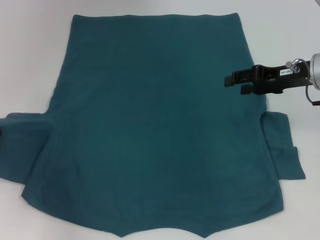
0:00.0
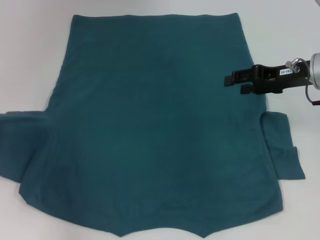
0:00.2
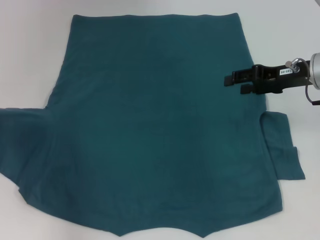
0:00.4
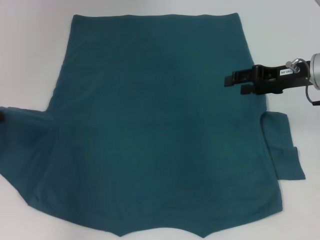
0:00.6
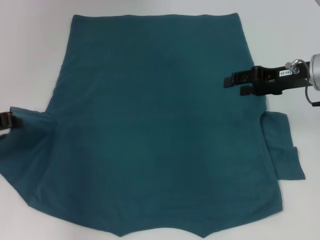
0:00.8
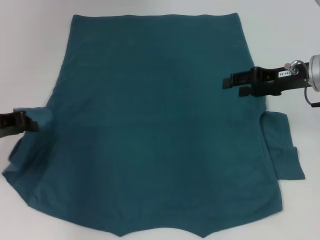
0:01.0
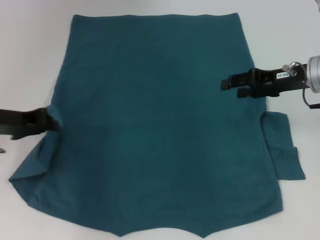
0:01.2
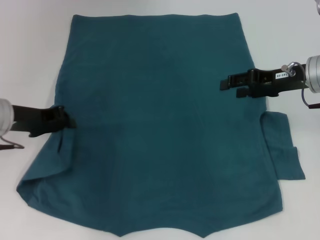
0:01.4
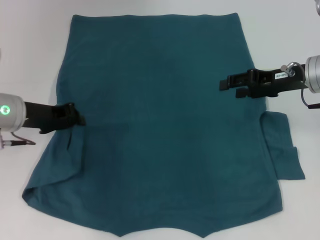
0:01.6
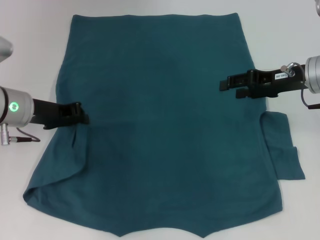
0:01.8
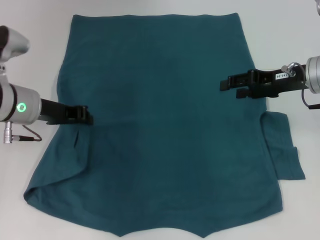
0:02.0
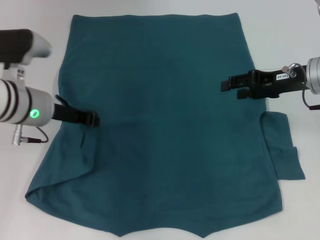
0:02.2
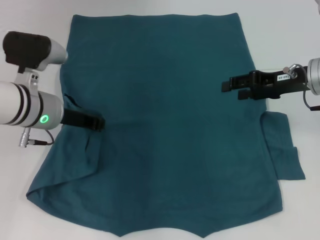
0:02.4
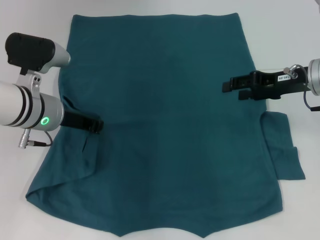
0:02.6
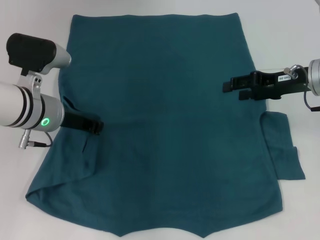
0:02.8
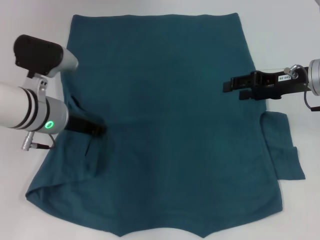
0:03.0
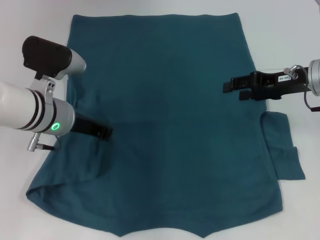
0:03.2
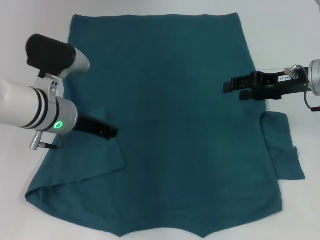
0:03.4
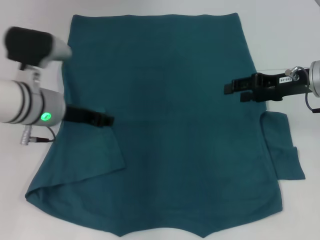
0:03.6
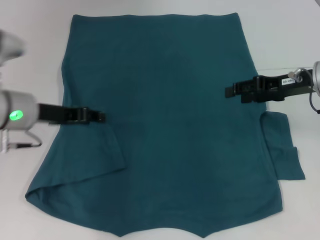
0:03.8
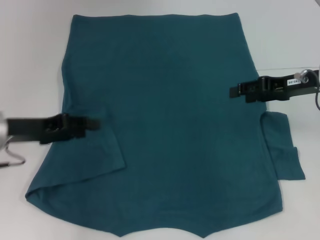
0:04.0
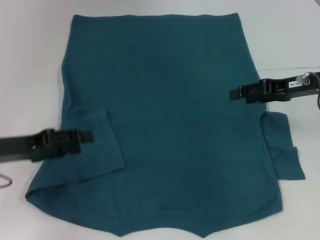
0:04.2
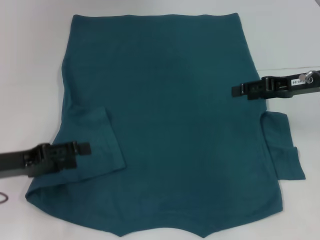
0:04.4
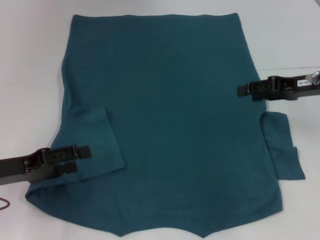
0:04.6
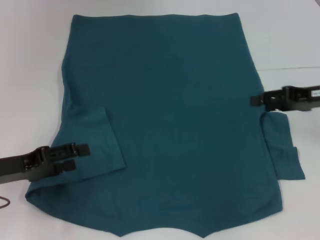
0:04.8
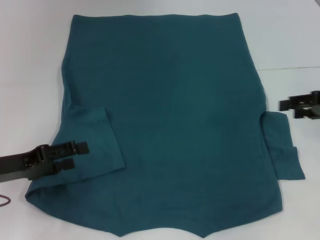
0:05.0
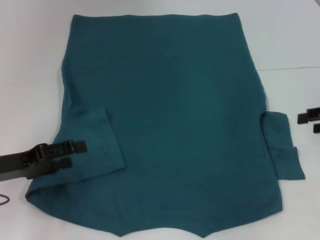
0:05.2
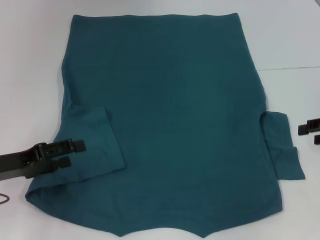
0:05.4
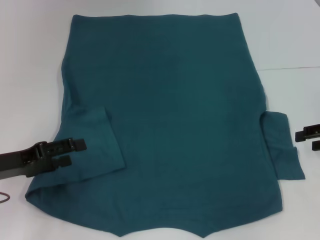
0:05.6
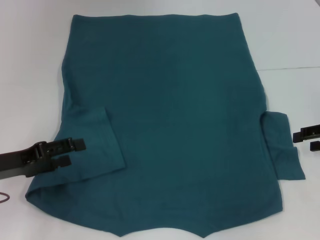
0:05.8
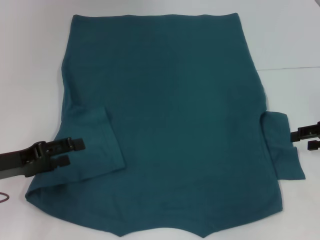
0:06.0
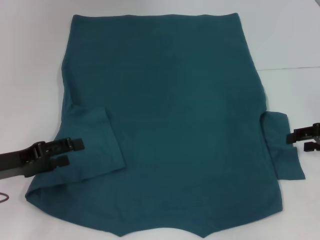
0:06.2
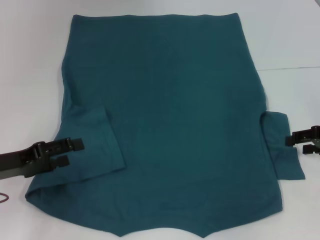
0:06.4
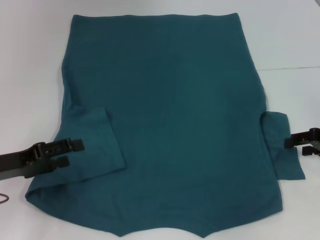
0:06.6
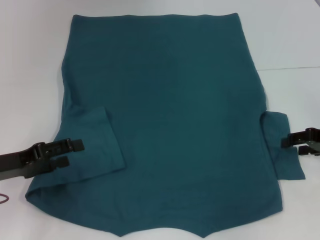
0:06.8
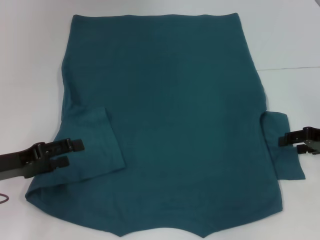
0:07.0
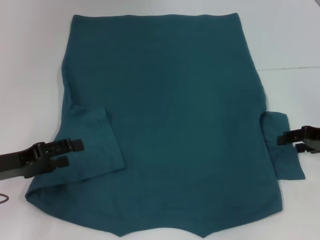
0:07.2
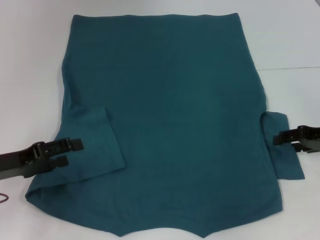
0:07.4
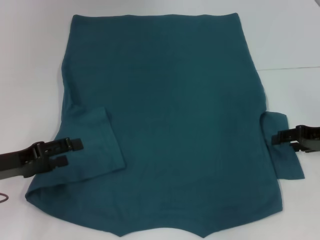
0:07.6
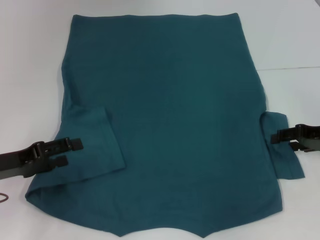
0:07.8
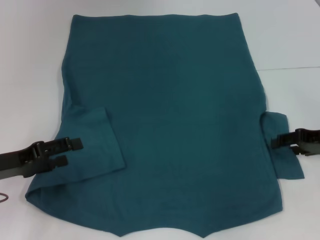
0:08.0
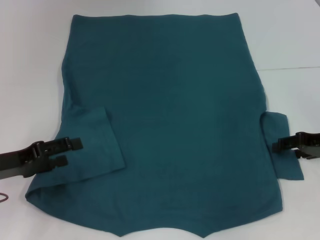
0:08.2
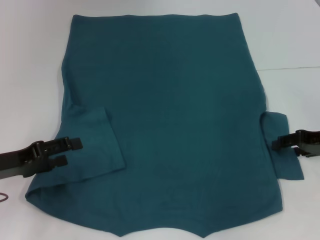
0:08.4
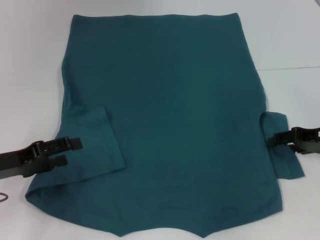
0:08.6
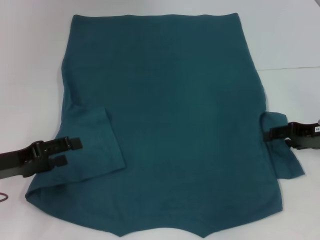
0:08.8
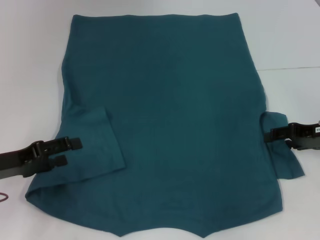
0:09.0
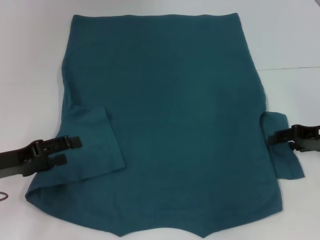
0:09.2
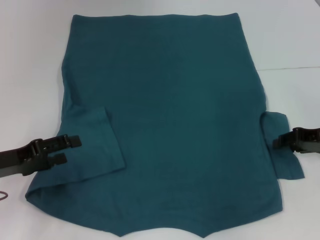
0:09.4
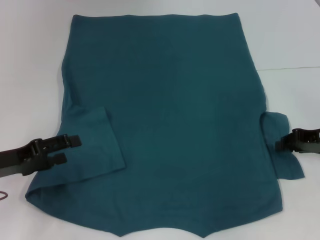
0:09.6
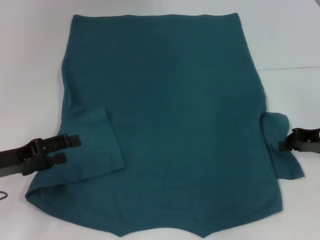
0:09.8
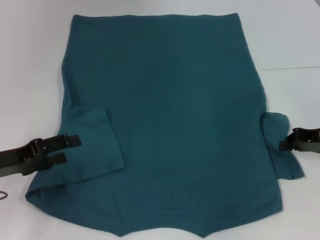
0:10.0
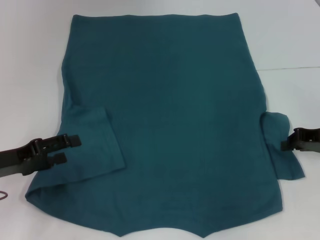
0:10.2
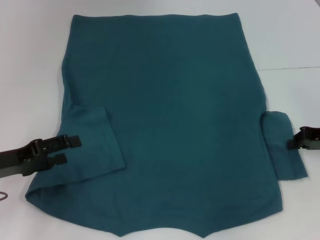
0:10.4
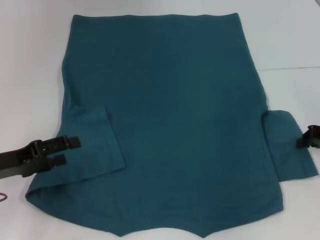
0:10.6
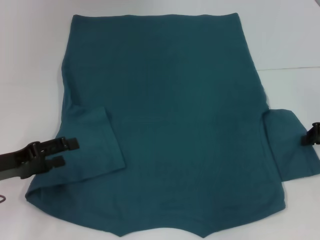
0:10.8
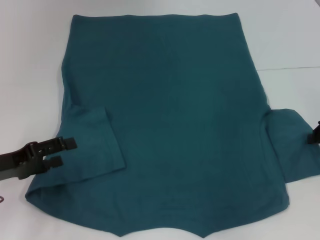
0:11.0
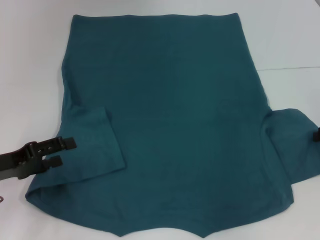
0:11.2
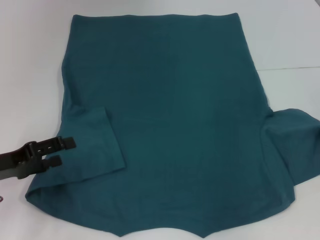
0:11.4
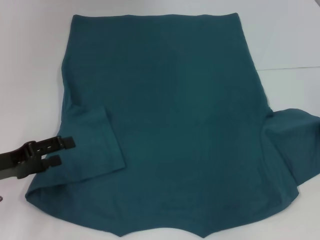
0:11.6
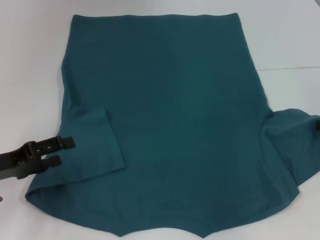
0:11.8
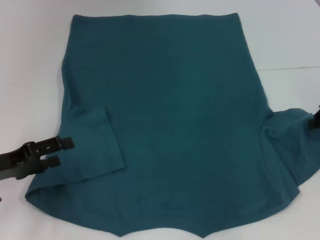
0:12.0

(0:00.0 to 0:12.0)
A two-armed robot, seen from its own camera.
Step, 0:00.0 - 0:03.6: Fold the bottom left sleeve with your left hand.
0:00.0 - 0:01.6: The left gripper travels to the right by roughly 10 cm.
0:01.6 - 0:03.0: The left gripper goes approximately 5 cm to the right.
0:03.0 - 0:04.4: The left gripper moves to the left and backward, roughly 15 cm, and opens its fingers.
0:04.4 - 0:06.0: The right gripper shifts about 10 cm to the right and backward.
0:06.0 - 0:07.6: The grippers move only a little.
0:07.6 - 0:09.0: The two grippers keep their place.
0:09.0 - 0:10.4: The right gripper closes.
0:10.4 - 0:12.0: The right gripper changes place by about 5 cm.

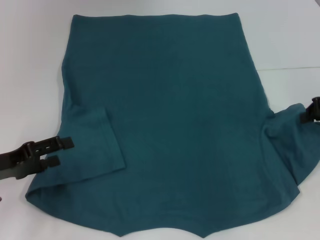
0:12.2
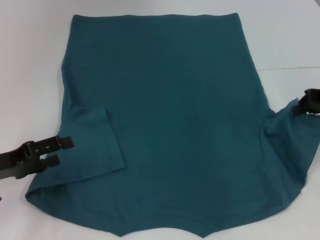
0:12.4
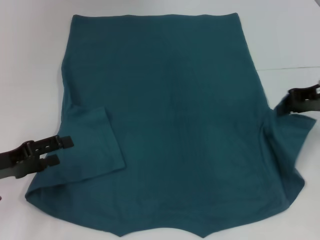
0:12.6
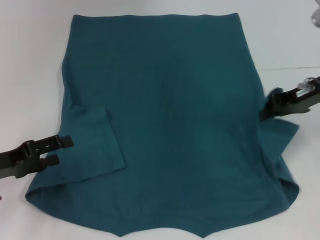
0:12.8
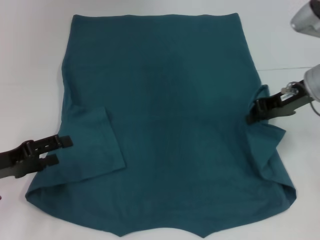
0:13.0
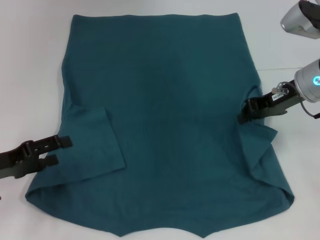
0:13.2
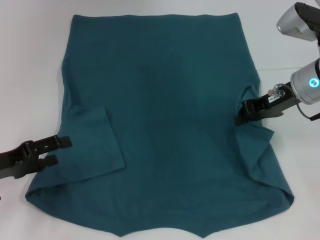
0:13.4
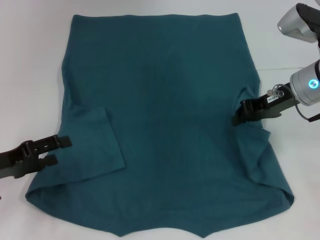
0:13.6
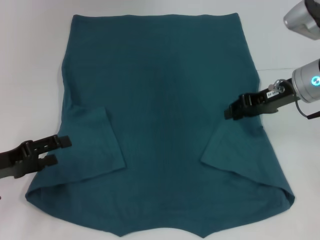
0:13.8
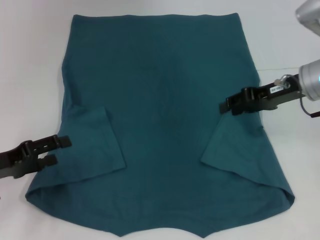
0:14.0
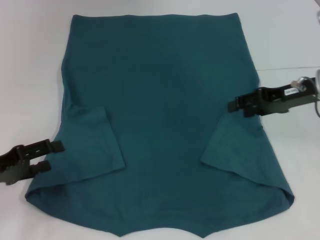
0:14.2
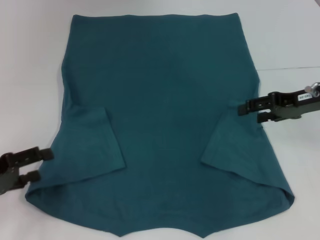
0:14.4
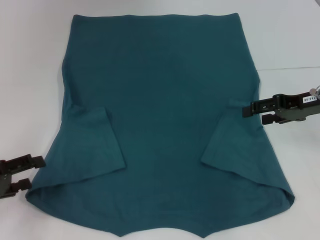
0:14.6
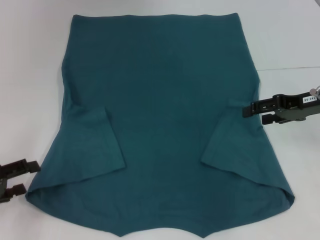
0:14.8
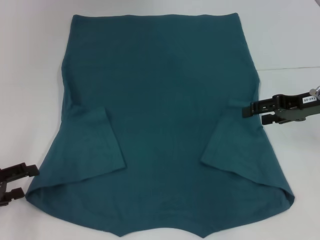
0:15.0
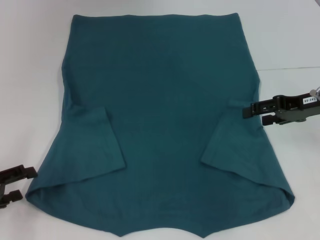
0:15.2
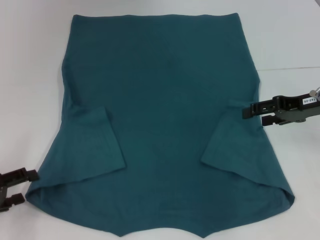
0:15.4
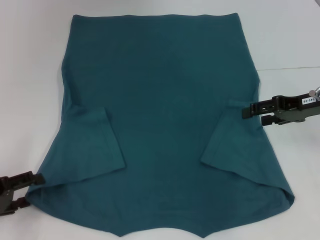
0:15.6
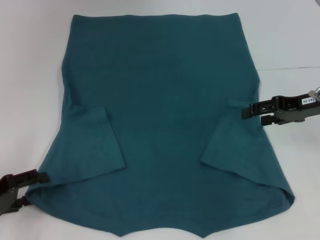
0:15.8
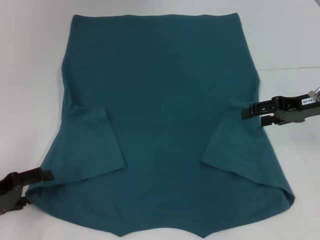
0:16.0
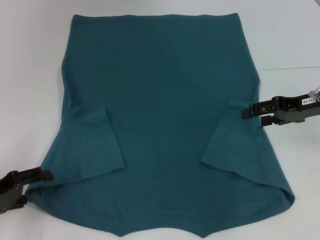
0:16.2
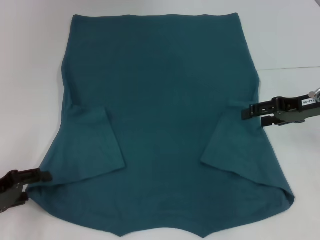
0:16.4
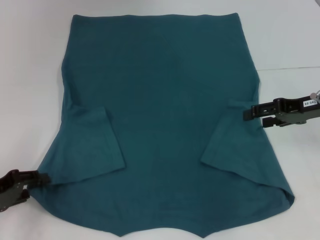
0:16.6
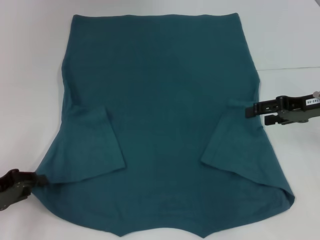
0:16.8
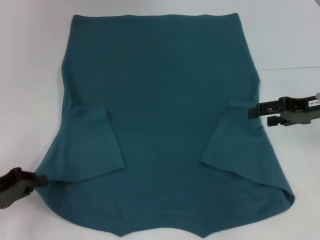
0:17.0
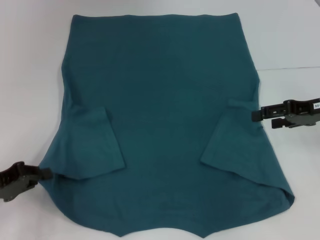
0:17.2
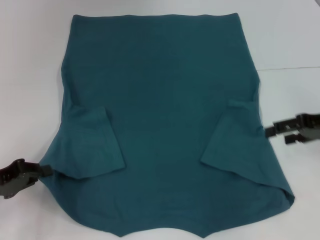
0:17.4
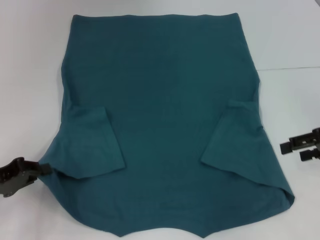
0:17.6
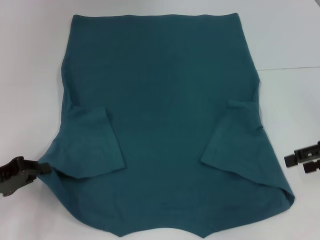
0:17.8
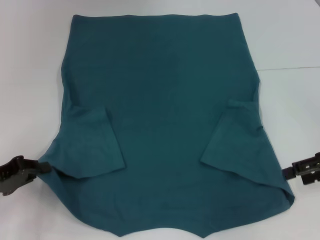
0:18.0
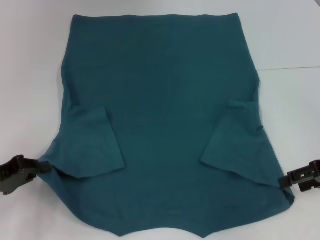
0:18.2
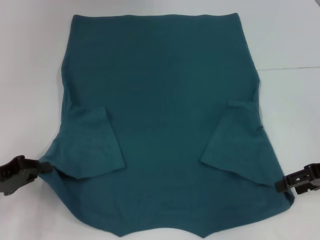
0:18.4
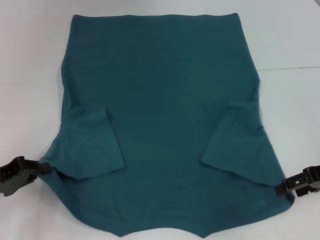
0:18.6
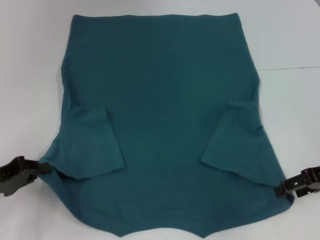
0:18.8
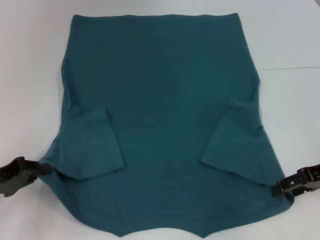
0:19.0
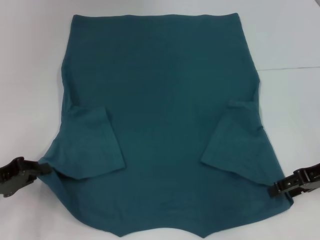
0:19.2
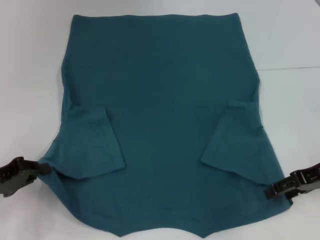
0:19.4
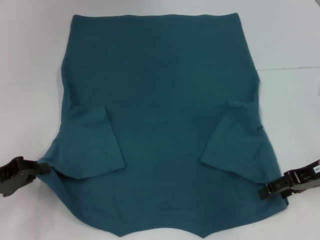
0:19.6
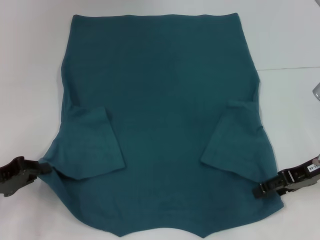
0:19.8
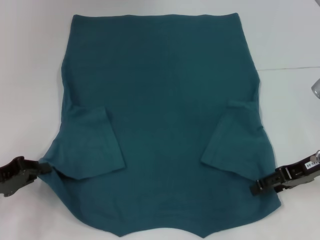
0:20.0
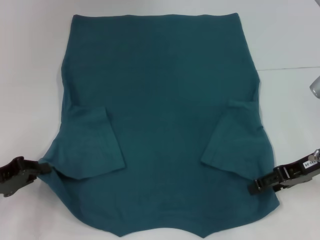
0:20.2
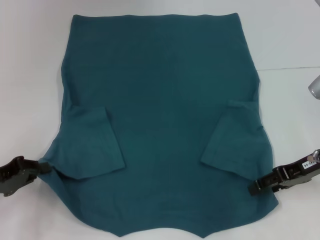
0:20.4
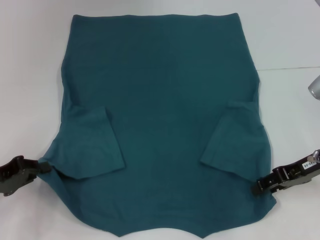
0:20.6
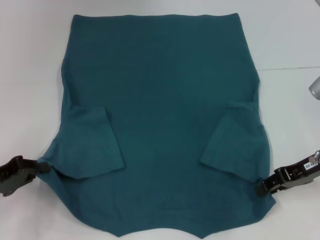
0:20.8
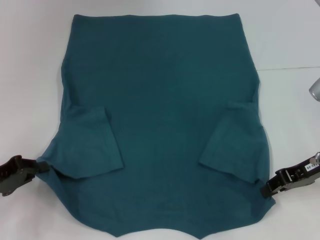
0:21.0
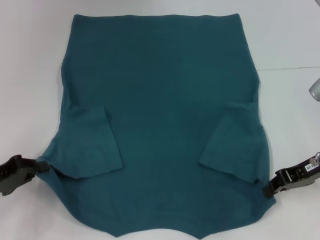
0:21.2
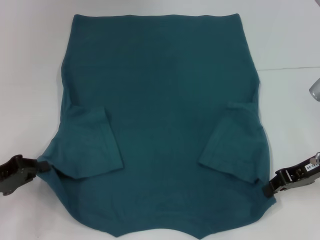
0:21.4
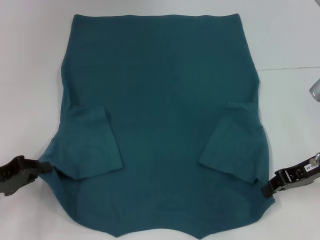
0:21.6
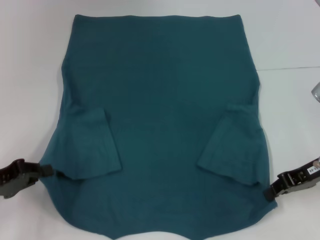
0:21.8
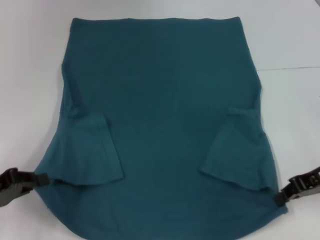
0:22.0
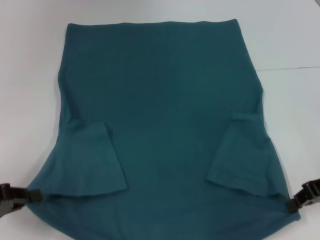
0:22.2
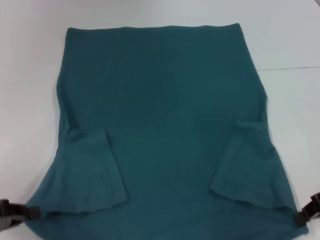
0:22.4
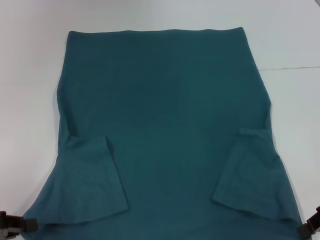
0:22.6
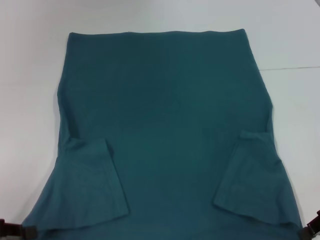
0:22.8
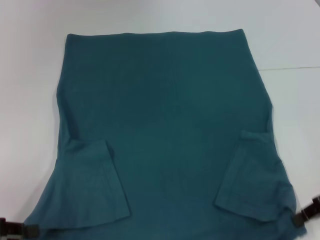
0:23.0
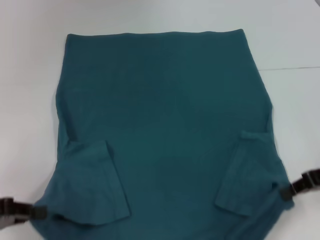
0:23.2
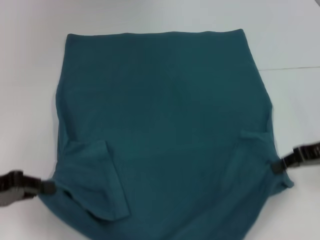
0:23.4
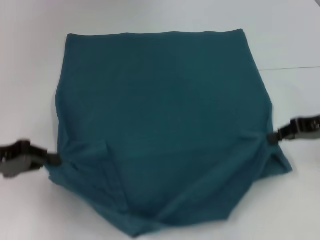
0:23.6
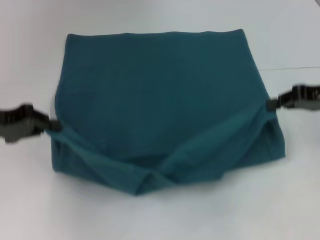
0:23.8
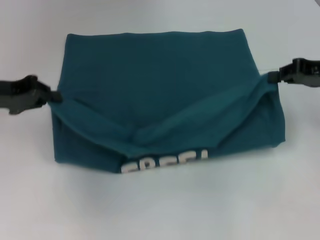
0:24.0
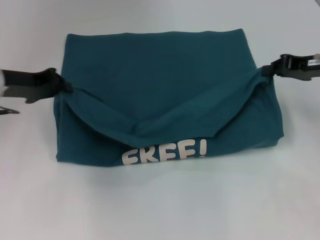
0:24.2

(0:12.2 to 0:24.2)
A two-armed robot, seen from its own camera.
Step, 0:12.2 - 0:14.8: Fold the bottom right sleeve to the right.
Step, 0:15.0 - 0:16.8: Grab the bottom left corner with your left hand.
Step, 0:17.0 - 0:21.0: Grab the bottom right corner with your right hand.
0:12.2 - 0:13.8: The right gripper is displaced to the left by approximately 10 cm.
0:13.8 - 0:15.2: The left gripper shifts by roughly 5 cm. Meanwhile the right gripper moves to the right, about 5 cm, and opens up.
0:15.2 - 0:16.6: There are only small adjustments of the grippers.
0:16.6 - 0:18.2: The right gripper is displaced backward by about 5 cm, while the left gripper closes.
0:18.2 - 0:19.8: The right gripper shifts by approximately 5 cm.
0:19.8 - 0:21.2: The right gripper closes its fingers.
0:21.2 - 0:22.6: Both grippers move backward, roughly 5 cm.
0:22.6 - 0:24.2: The right gripper heads forward and upward, covering approximately 15 cm, while the left gripper shifts about 20 cm forward, upward and to the right.
